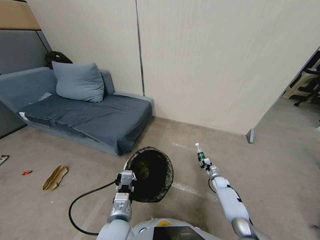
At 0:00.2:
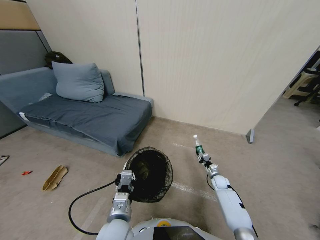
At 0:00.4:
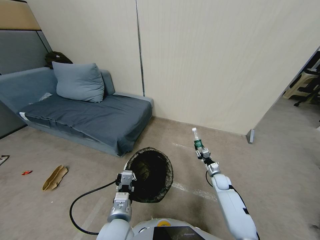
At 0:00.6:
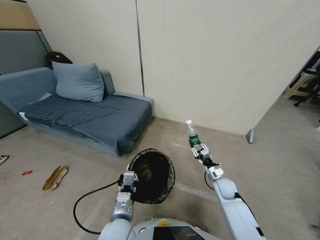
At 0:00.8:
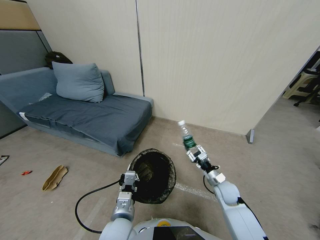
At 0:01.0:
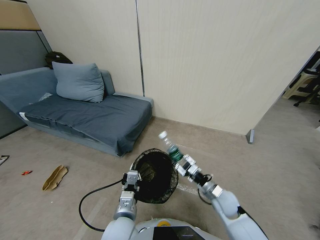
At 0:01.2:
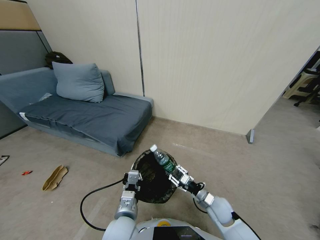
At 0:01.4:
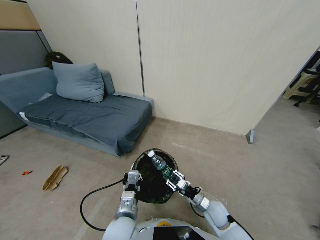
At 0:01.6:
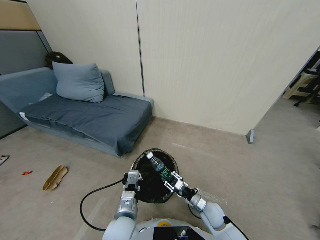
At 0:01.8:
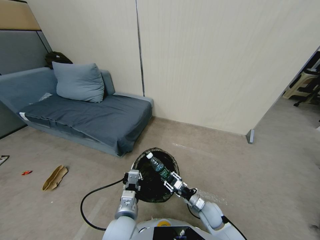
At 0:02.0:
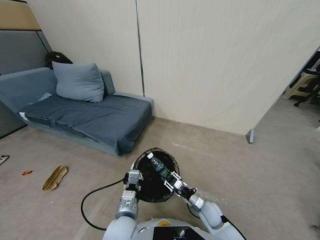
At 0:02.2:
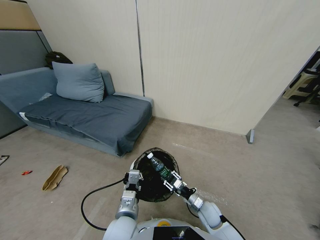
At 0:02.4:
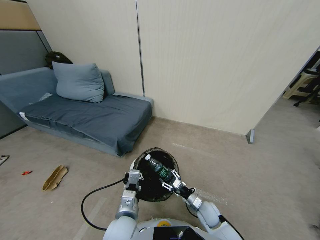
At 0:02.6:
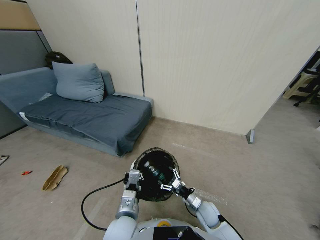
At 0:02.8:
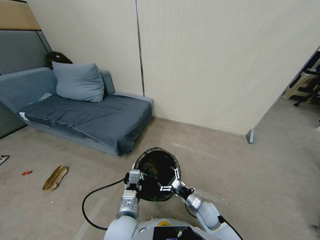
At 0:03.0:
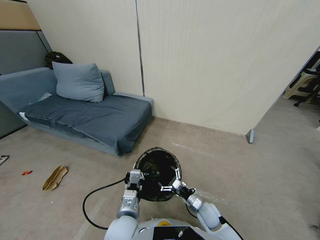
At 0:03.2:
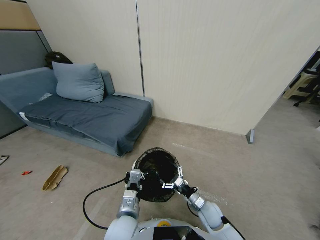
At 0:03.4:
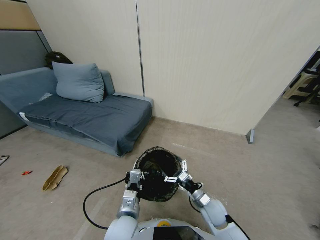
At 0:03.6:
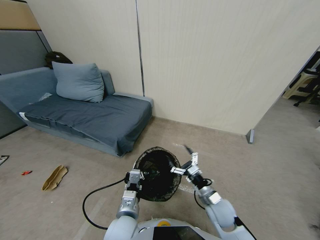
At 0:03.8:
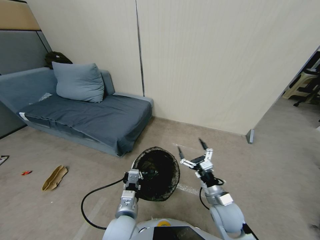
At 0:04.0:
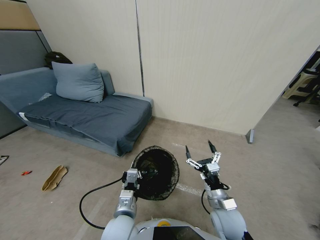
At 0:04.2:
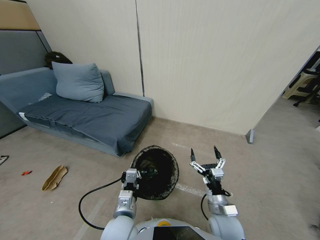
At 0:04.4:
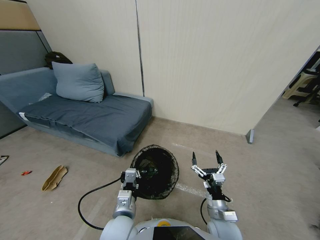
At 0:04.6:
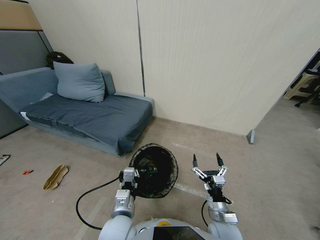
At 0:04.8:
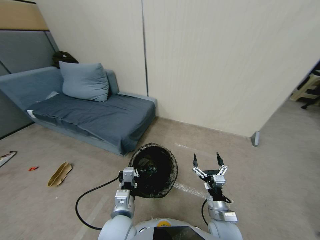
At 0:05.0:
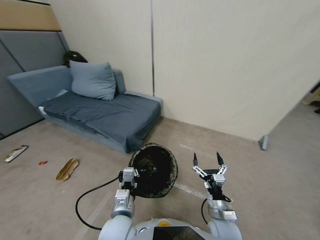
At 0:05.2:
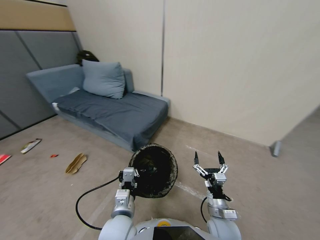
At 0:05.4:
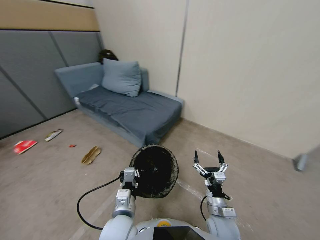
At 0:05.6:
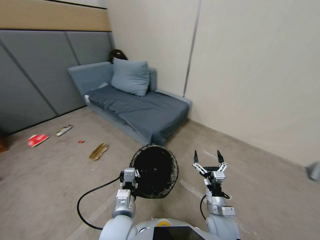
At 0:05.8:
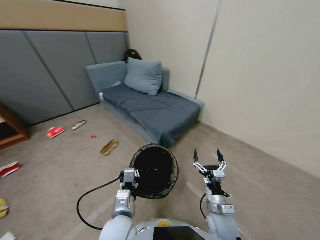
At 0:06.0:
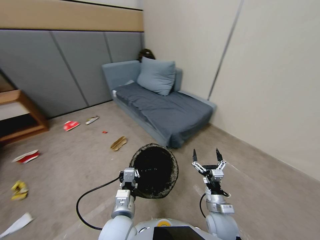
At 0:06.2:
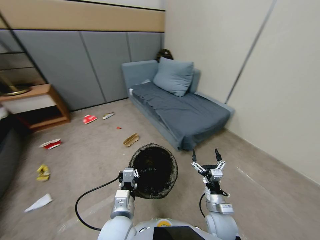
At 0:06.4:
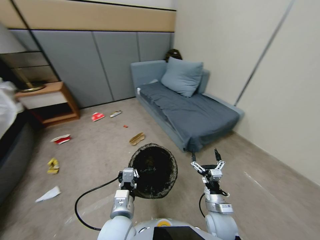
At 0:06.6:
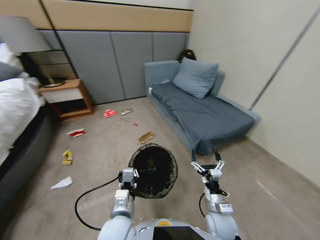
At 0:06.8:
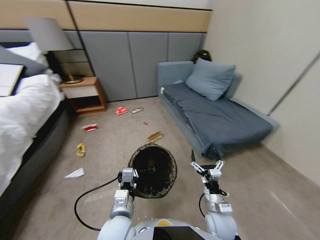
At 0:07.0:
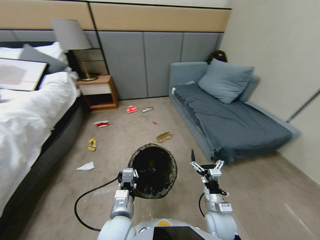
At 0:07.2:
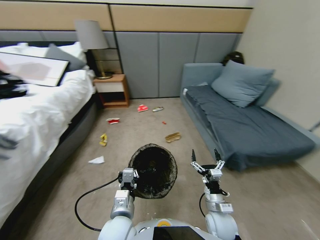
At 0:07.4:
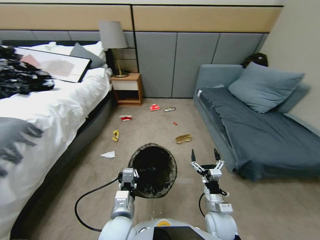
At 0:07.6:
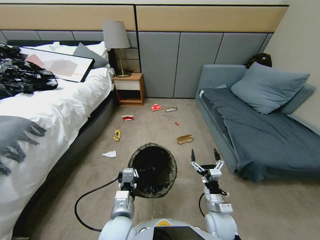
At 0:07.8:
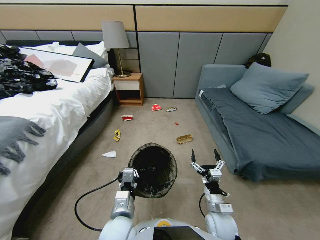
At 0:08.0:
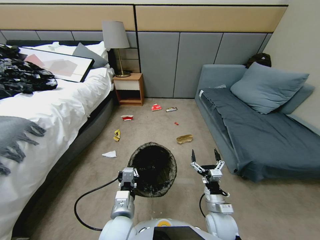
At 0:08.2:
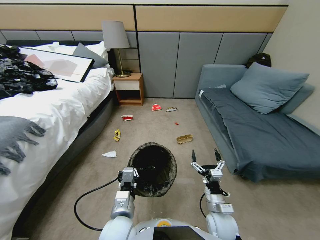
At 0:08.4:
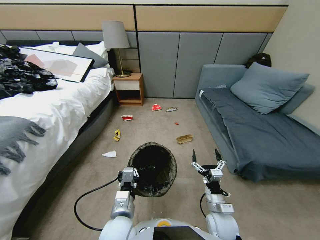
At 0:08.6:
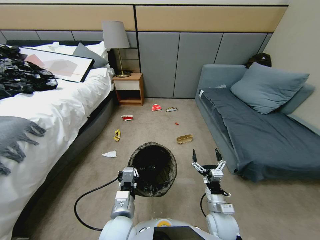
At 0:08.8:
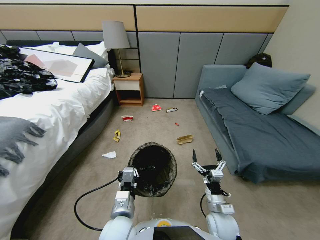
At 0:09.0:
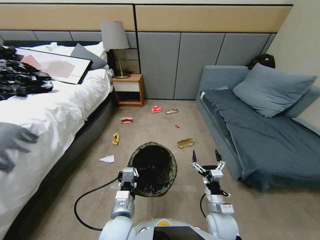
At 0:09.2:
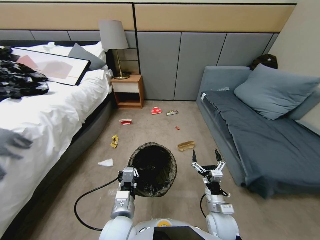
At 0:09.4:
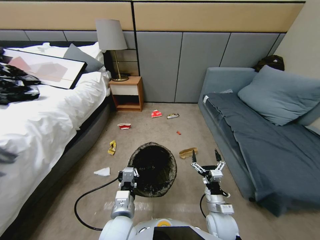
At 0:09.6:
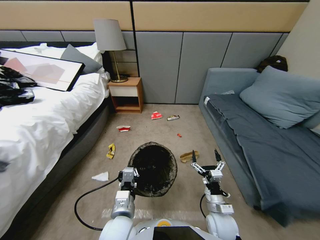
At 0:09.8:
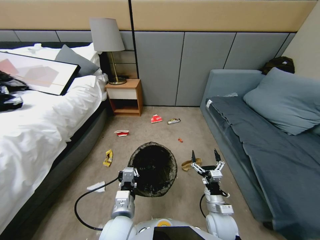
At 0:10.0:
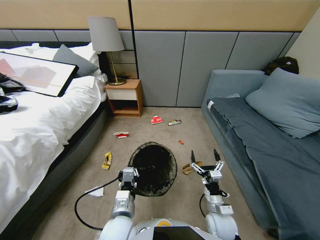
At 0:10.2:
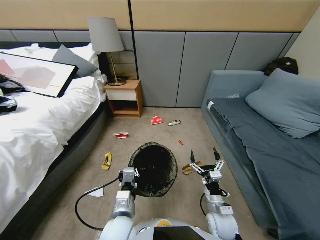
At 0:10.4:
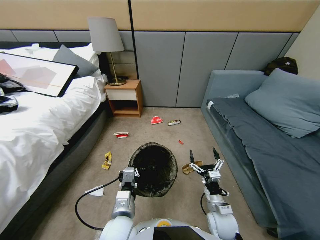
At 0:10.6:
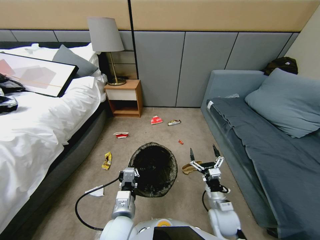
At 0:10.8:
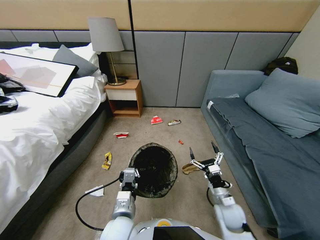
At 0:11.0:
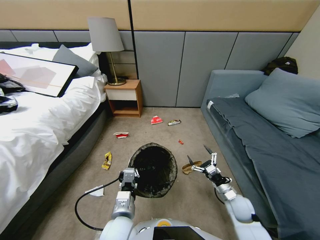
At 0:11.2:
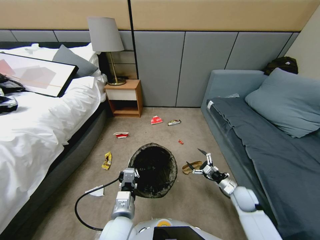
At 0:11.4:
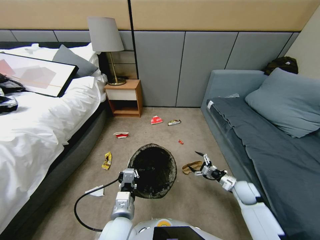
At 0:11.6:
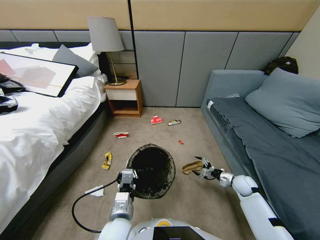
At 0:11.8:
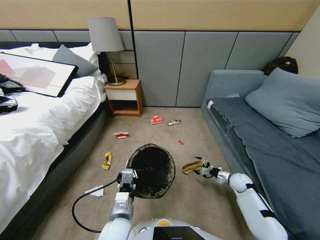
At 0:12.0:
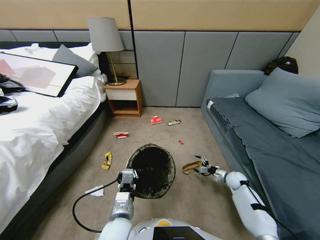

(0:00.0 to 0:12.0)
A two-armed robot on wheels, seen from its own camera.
Task of the whole recording: Pick up the trash bin, then pick up the garbage from the floor and place it into the trash bin.
0:00.0 - 0:01.6: The right gripper travels backward, to the left and upward by roughly 25 cm.
0:01.6 - 0:03.0: The right gripper opens its fingers.
0:03.0 - 0:04.4: The right gripper is displaced upward and backward by approximately 10 cm.
0:07.6 - 0:09.0: Both grippers stay about where they are.
0:10.4 - 0:12.0: The right gripper goes approximately 30 cm to the right, forward and downward.

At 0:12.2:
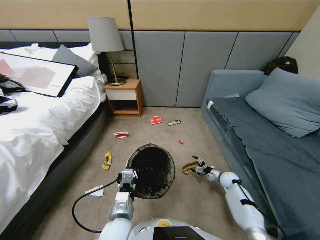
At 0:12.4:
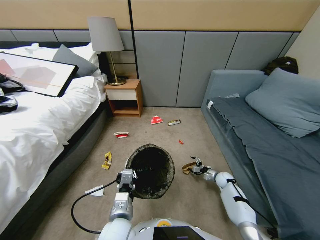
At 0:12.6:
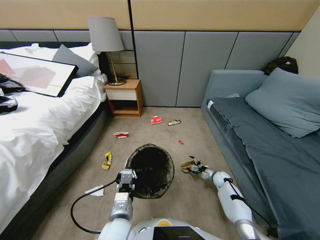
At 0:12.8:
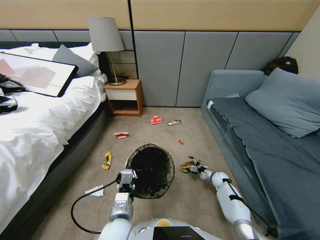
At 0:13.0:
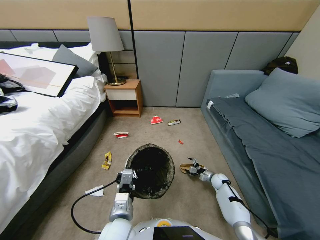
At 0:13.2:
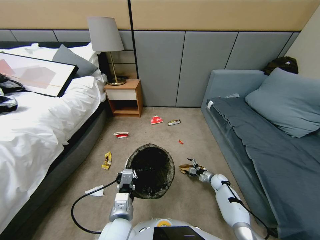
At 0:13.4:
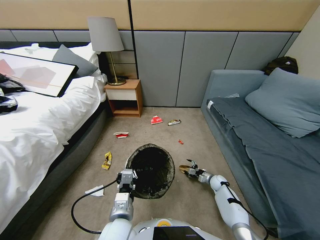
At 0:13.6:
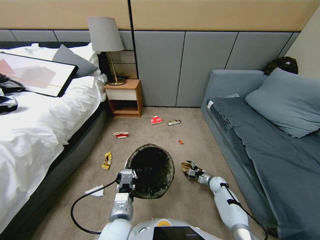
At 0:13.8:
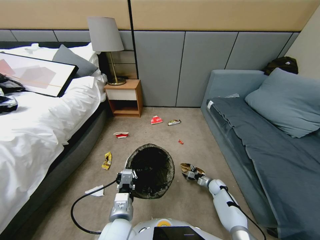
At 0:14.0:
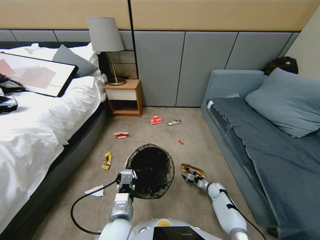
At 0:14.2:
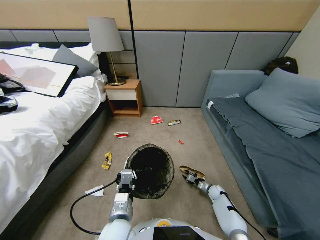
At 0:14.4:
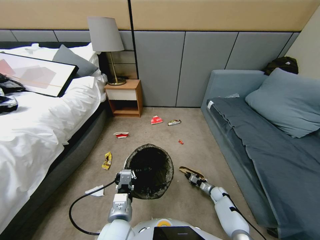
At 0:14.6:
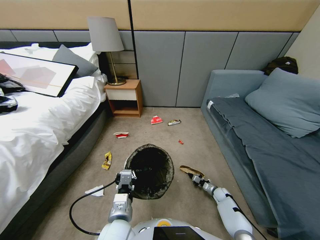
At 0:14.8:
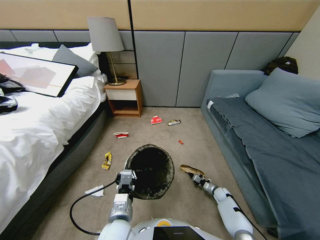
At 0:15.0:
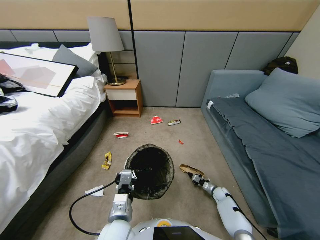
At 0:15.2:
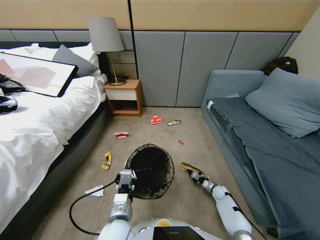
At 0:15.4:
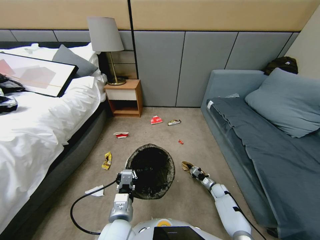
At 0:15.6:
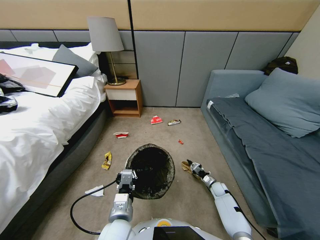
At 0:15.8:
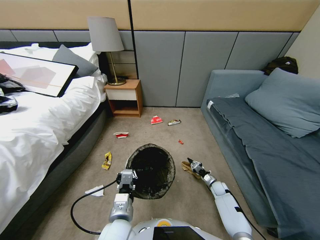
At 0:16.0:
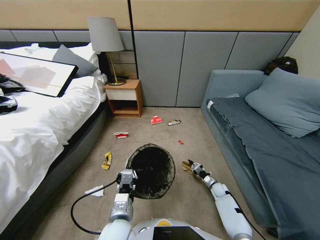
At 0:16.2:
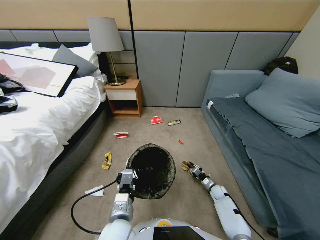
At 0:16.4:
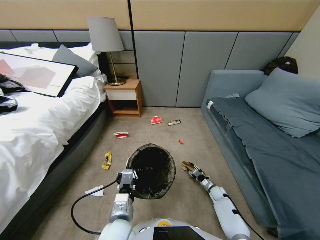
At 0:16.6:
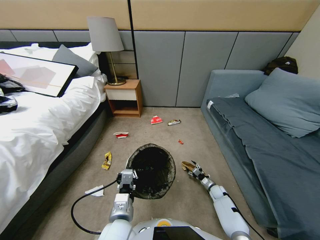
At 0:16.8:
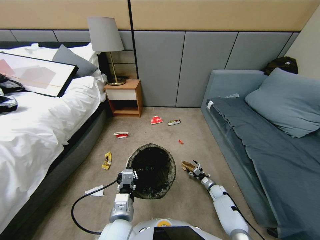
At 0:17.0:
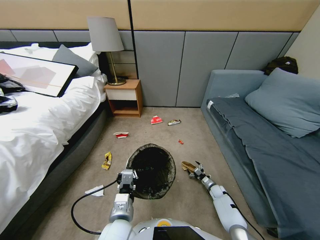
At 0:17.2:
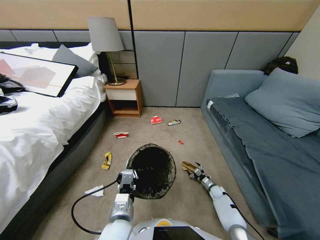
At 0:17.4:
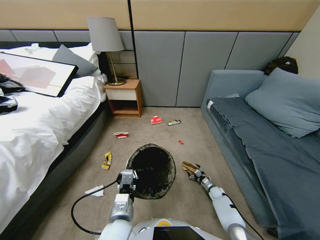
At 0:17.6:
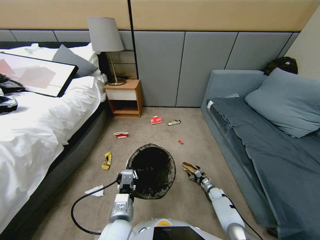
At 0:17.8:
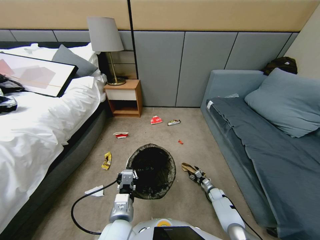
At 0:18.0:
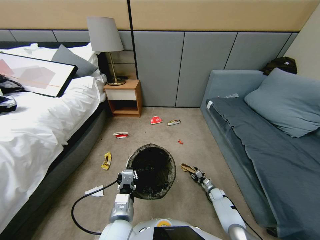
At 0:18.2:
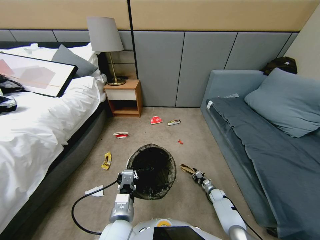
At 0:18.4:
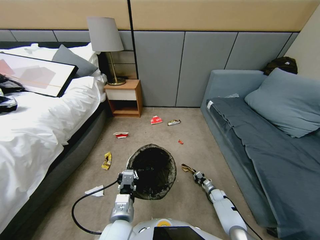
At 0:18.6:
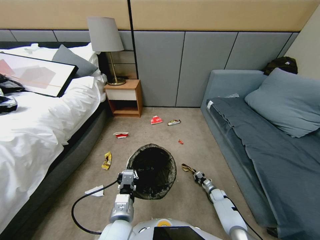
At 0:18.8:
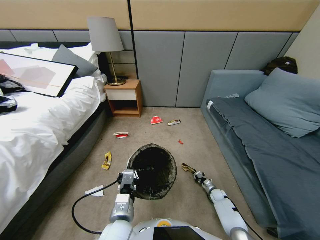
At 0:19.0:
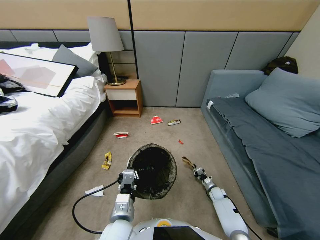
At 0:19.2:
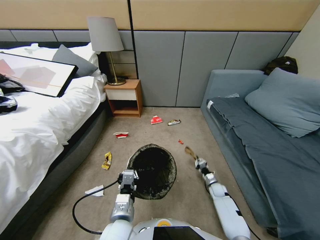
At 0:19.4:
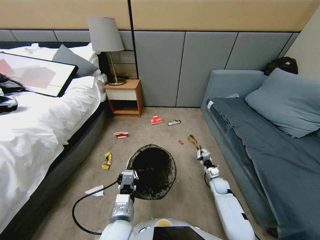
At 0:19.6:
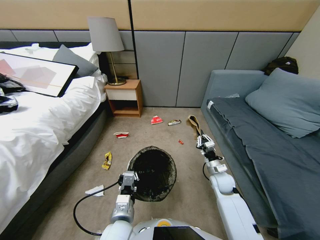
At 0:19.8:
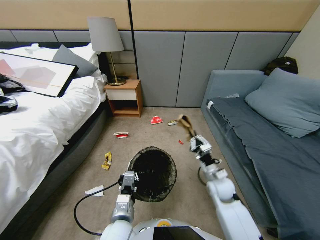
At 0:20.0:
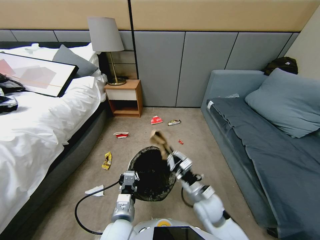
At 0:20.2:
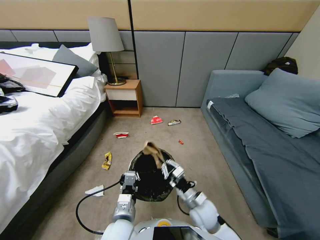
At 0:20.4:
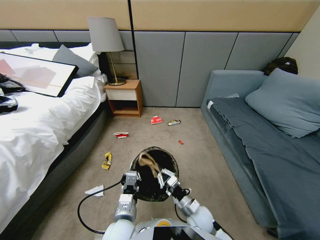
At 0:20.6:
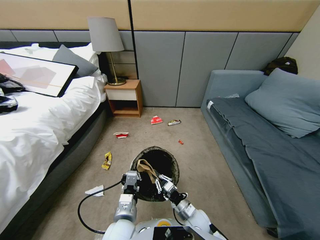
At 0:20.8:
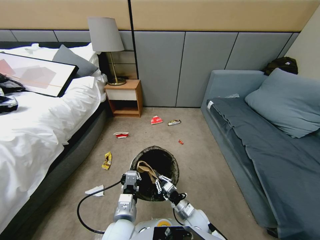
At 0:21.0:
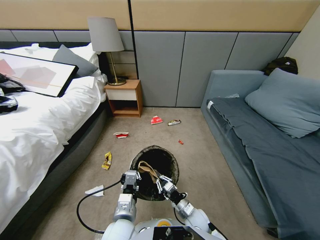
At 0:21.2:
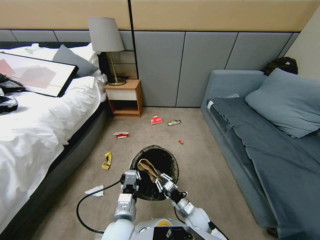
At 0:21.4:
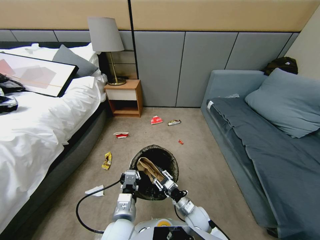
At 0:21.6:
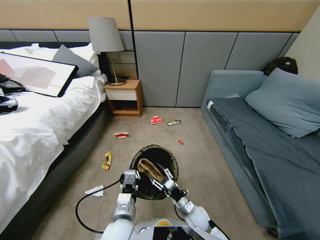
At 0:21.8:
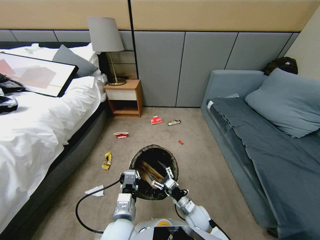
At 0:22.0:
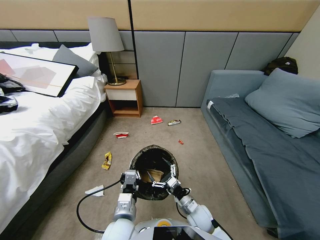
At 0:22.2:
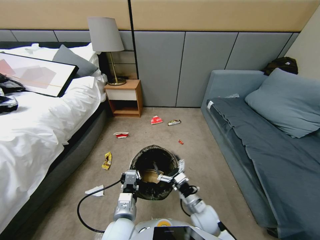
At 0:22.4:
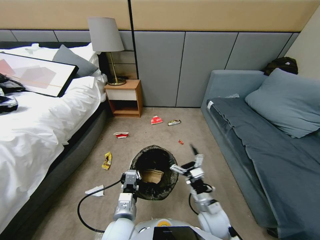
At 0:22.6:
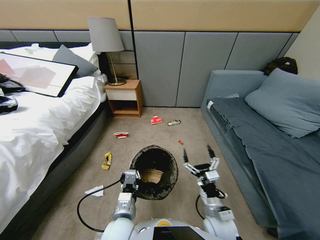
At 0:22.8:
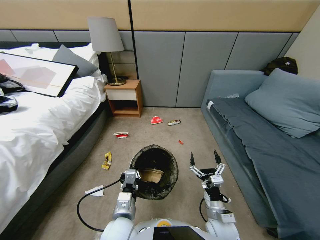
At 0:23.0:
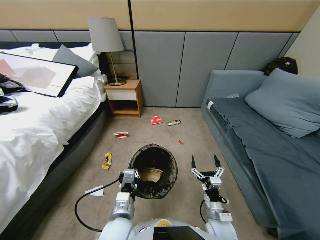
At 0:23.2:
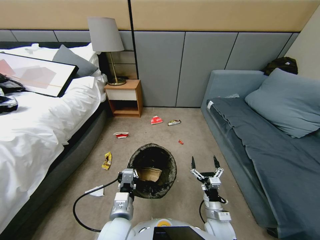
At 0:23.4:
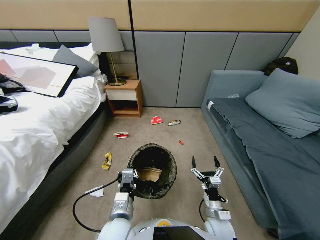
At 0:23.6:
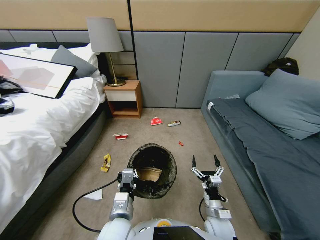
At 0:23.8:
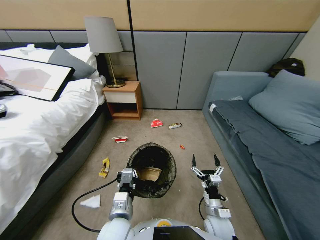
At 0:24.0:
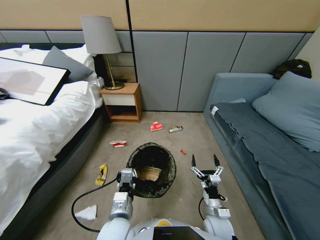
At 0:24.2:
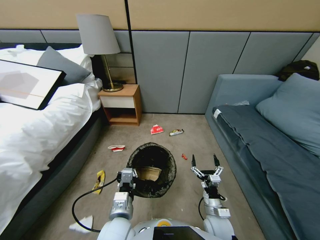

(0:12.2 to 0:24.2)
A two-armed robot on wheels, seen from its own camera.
Task of the whole recording: Pick up the trash bin, then pick up the garbage from the floor and place it into the trash bin.
0:12.2 - 0:13.8: The right gripper shifts some 5 cm downward.
0:13.8 - 0:15.2: The right gripper closes its fingers.
0:15.2 - 0:16.6: The right gripper opens up.
0:16.6 - 0:18.2: The right gripper closes.
0:18.2 - 0:19.8: The right gripper travels upward and to the left by some 35 cm.
0:19.8 - 0:21.2: The right gripper heads downward, covering approximately 10 cm.
0:21.2 - 0:22.6: The right gripper travels upward and to the right by about 10 cm, and opens up.
